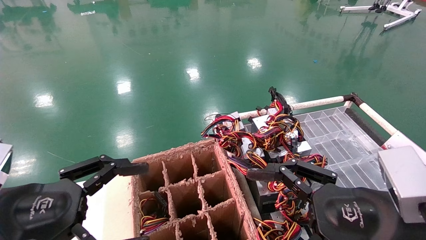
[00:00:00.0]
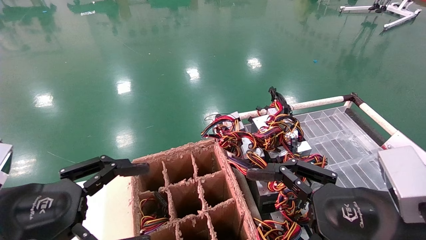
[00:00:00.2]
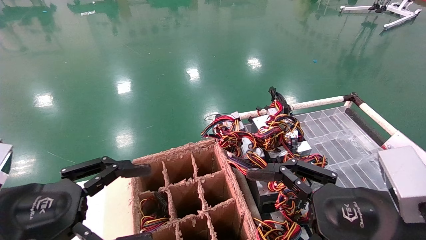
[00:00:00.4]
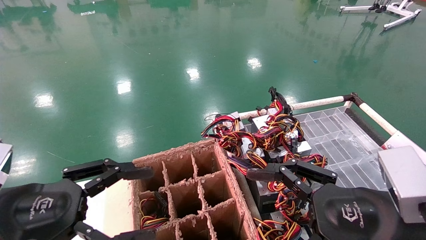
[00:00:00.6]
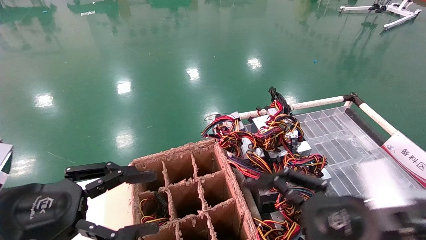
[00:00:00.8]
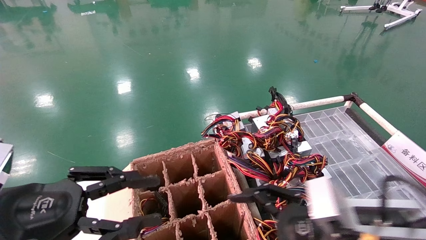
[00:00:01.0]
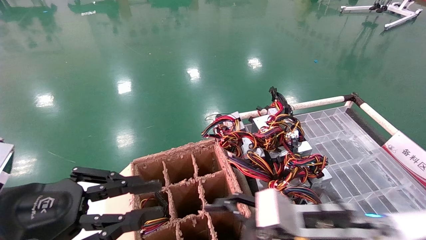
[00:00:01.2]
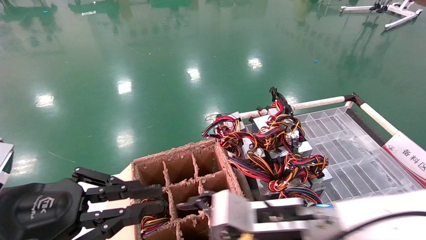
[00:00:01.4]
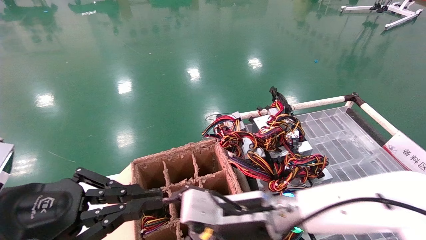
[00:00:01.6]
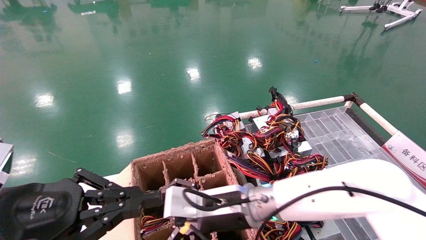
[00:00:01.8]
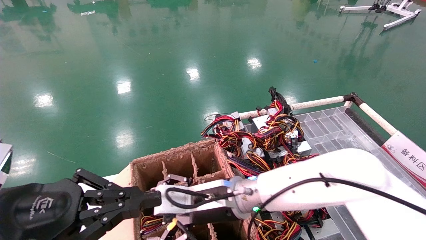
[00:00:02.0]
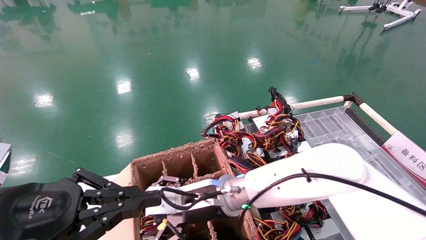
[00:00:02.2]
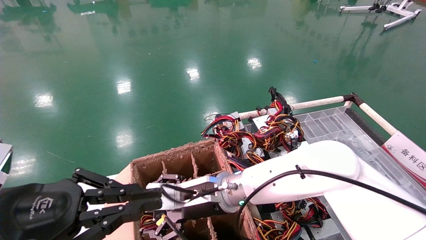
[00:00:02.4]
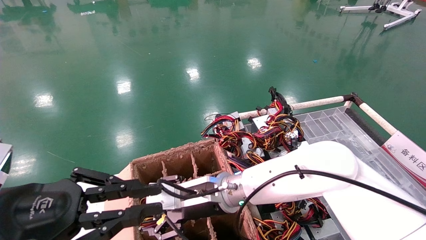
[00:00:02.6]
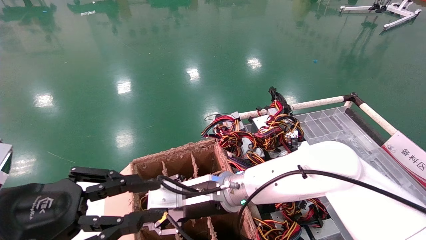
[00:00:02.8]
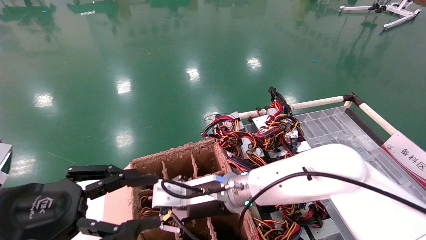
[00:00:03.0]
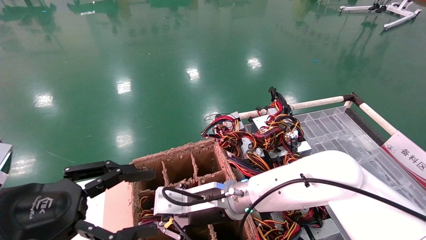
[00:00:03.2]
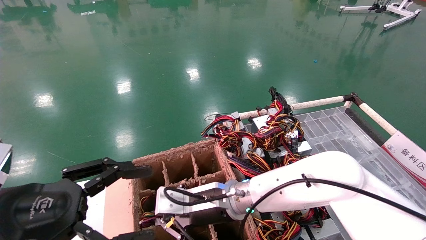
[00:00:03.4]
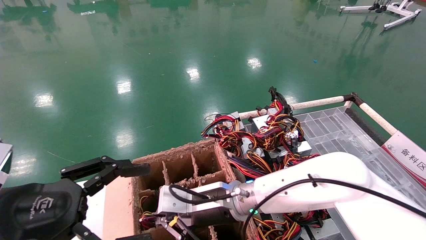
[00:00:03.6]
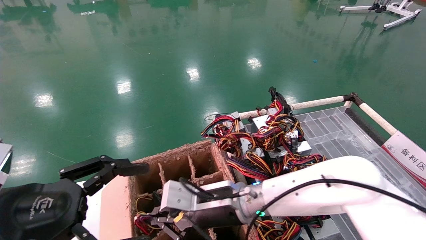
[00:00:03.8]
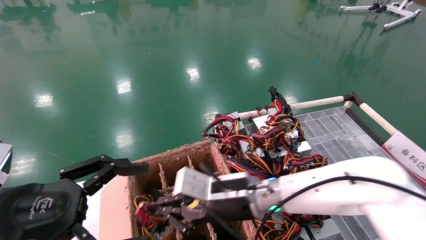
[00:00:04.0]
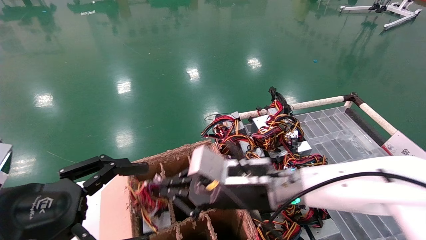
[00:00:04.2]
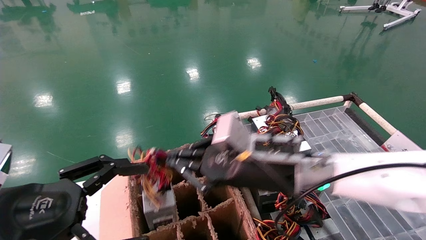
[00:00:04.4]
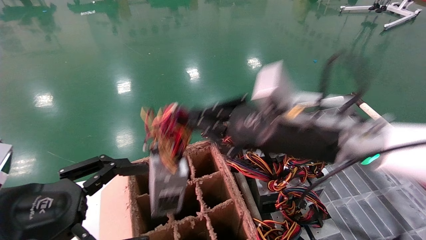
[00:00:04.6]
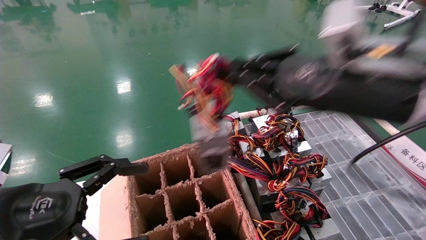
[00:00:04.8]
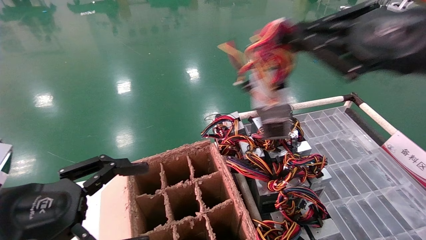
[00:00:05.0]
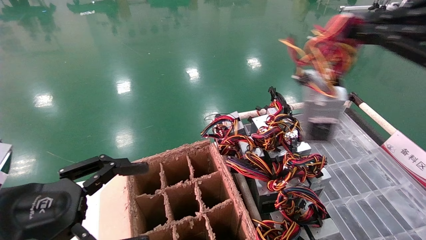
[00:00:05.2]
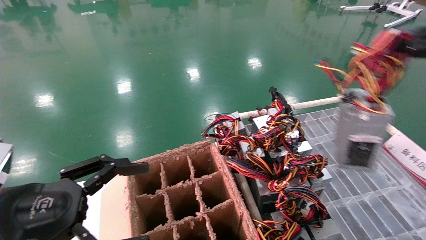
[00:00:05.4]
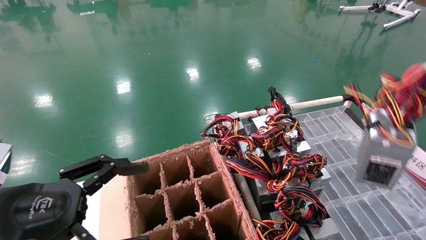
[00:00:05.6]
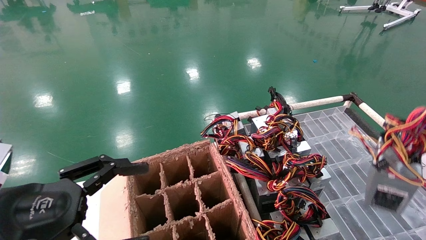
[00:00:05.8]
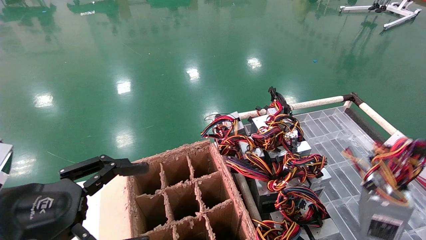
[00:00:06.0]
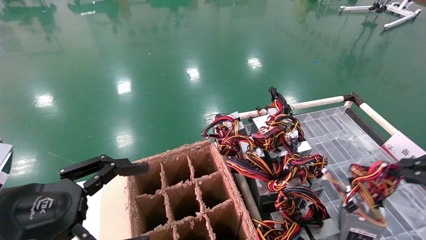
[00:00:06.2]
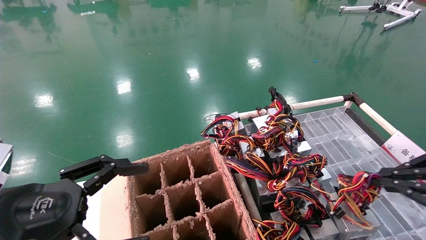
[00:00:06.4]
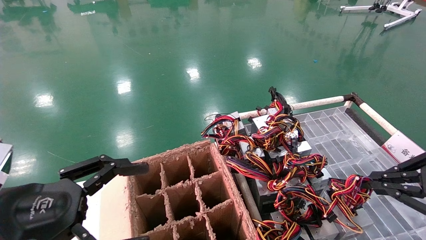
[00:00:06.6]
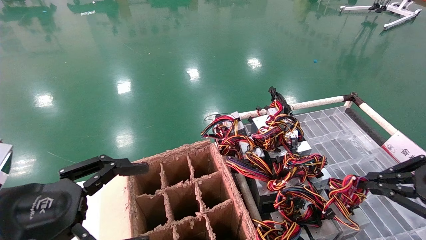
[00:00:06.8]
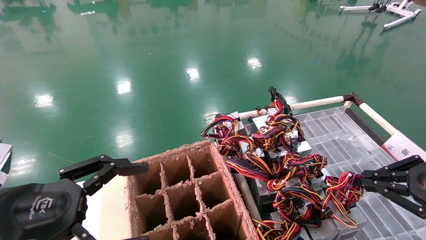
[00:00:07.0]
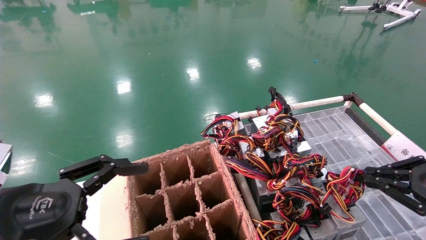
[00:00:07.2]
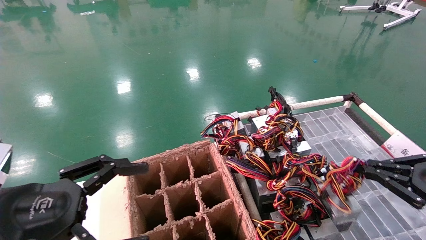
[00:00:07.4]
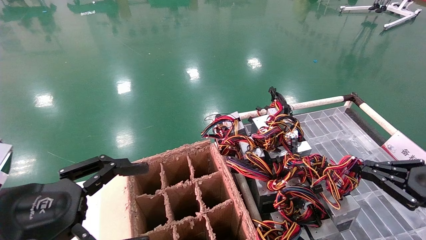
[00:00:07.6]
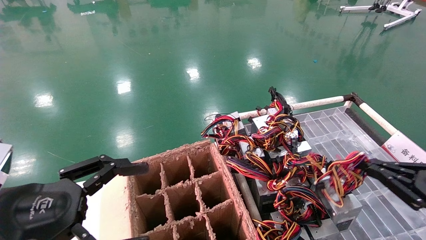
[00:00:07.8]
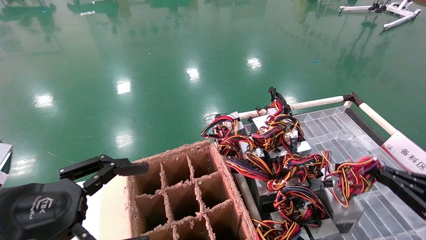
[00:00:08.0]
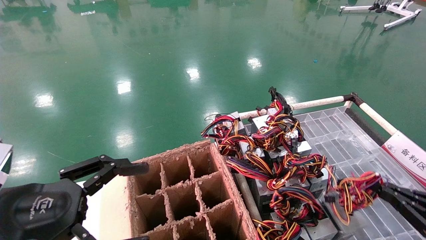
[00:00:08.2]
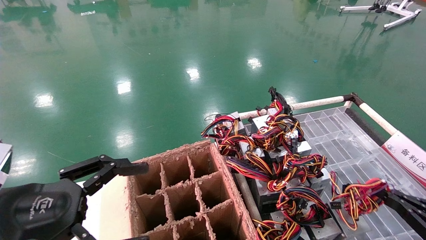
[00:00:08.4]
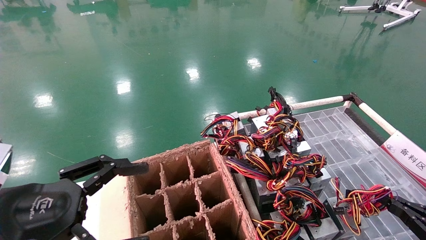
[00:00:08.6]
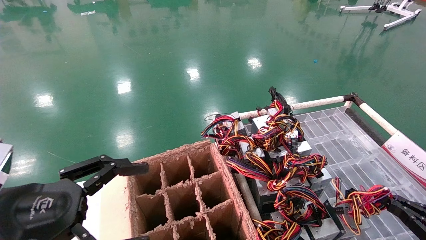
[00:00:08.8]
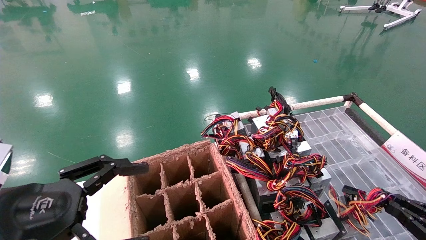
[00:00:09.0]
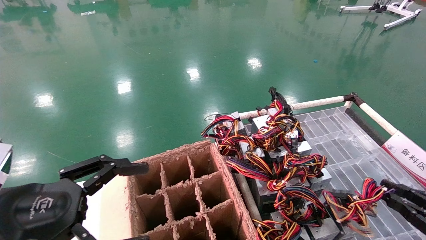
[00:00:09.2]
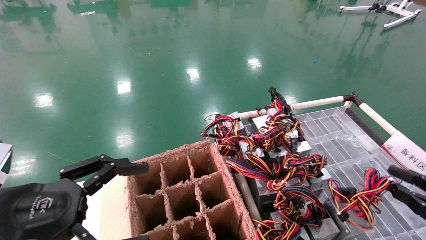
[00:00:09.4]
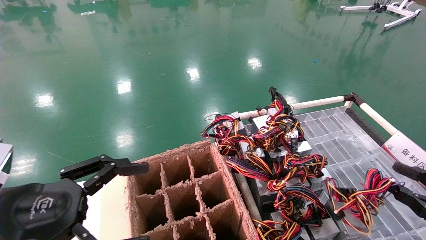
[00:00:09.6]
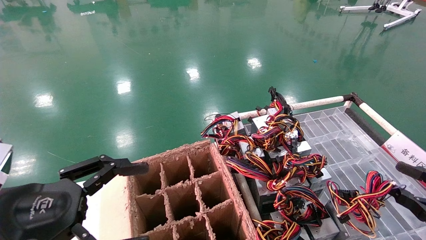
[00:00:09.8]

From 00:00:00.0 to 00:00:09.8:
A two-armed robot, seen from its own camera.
Step, from 00:00:00.8 to 00:00:03.4: Grab and lift the power supply from the large box.
Step, from 00:00:03.6 to 00:00:08.6: Place the power supply on the operating table.
From 00:00:00.0 to 00:00:01.4: The left gripper closes its fingers; the right gripper goes some 20 cm to the left, forward and downward.
From 00:00:01.4 to 00:00:02.8: The right gripper travels to the left and forward by approximately 15 cm, and closes its fingers.
From 00:00:02.8 to 00:00:04.2: The left gripper opens up, while the right gripper heads to the right, covering some 5 cm, and closes.
From 00:00:04.2 to 00:00:05.6: The right gripper goes roughly 40 cm to the right, backward and upward.
From 00:00:05.6 to 00:00:07.0: The right gripper shifts about 15 cm downward and forward.
From 00:00:07.0 to 00:00:08.4: The right gripper travels downward by about 15 cm.
From 00:00:08.4 to 00:00:09.8: The right gripper opens.

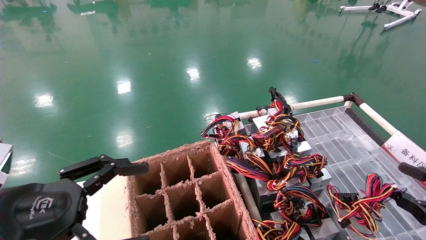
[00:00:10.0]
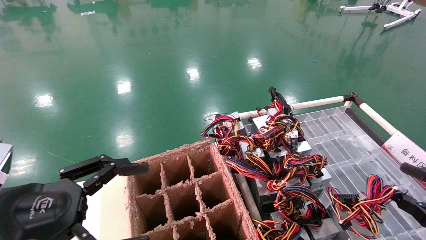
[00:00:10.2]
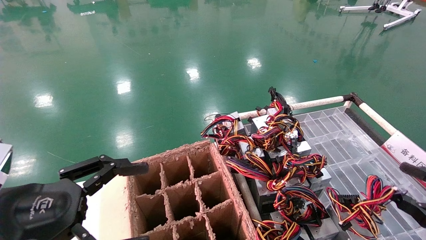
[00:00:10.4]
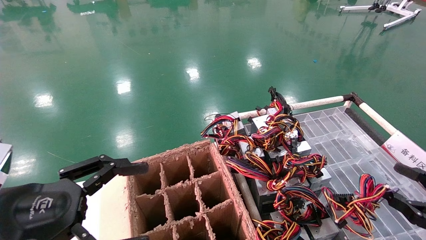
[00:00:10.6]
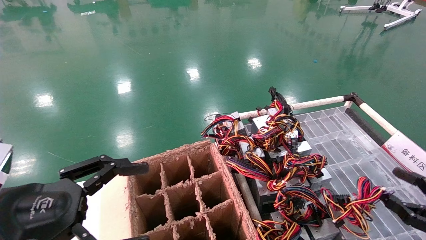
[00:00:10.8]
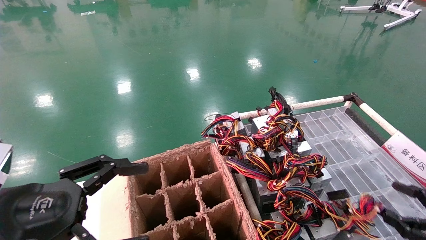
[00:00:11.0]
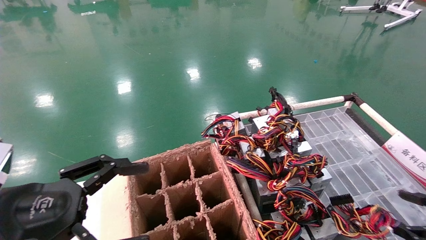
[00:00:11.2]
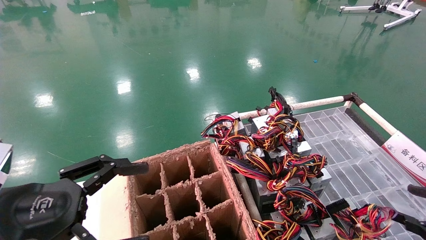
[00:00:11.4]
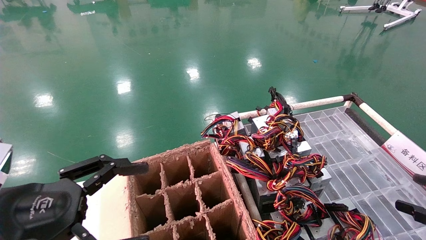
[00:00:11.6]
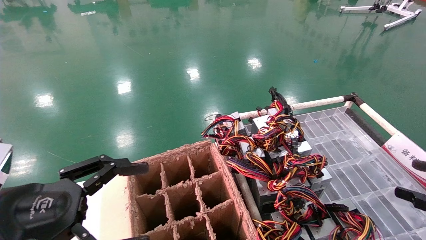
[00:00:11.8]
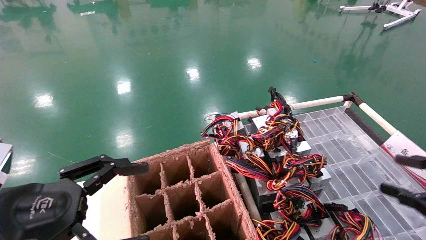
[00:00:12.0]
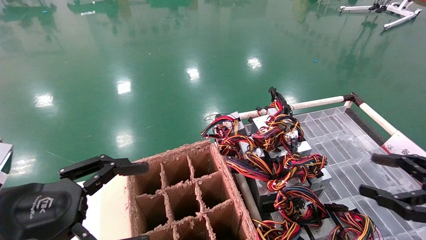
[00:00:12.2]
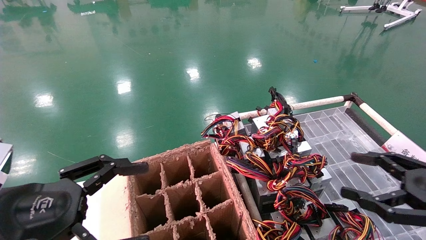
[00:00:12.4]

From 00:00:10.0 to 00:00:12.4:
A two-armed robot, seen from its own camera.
From 00:00:10.0 to 00:00:11.2: There are only small adjustments of the grippers.
From 00:00:11.2 to 00:00:12.4: The right gripper goes some 15 cm upward and to the left.
